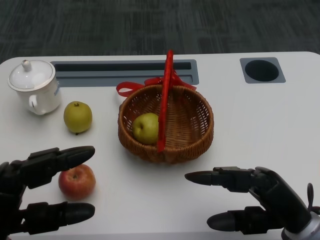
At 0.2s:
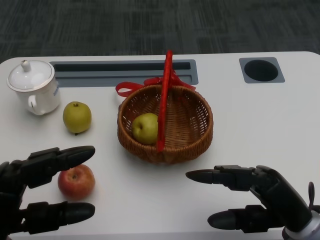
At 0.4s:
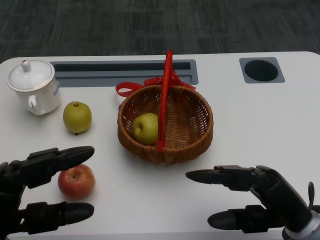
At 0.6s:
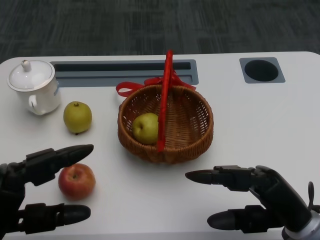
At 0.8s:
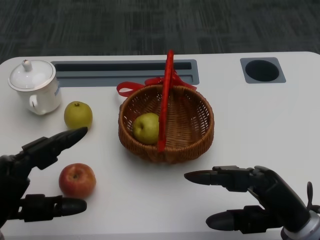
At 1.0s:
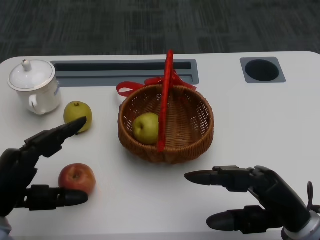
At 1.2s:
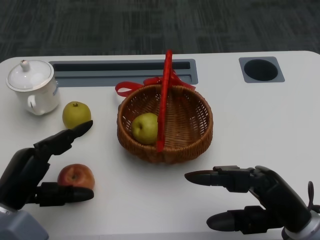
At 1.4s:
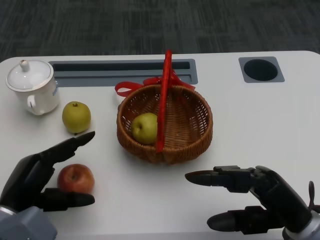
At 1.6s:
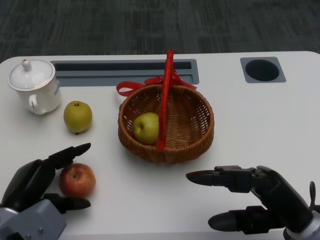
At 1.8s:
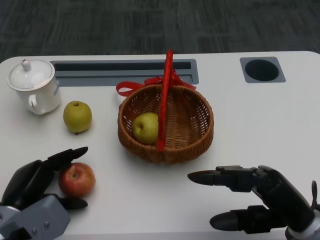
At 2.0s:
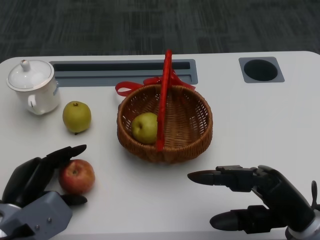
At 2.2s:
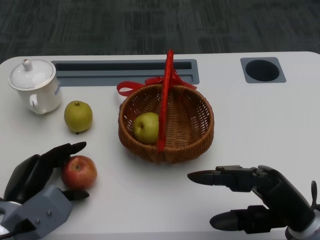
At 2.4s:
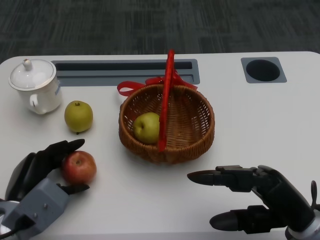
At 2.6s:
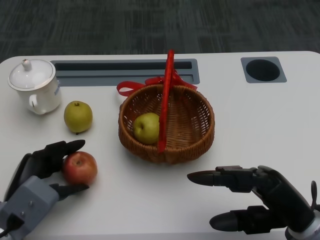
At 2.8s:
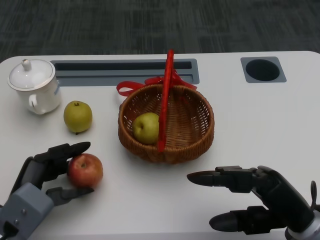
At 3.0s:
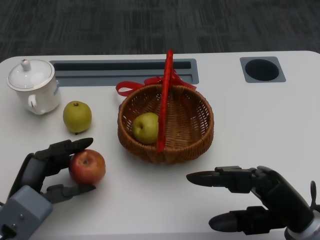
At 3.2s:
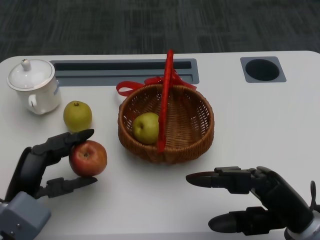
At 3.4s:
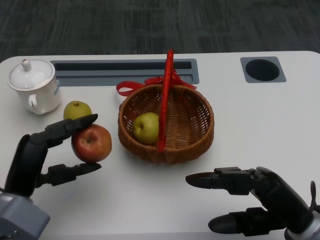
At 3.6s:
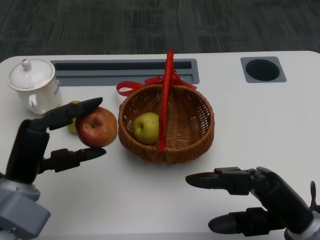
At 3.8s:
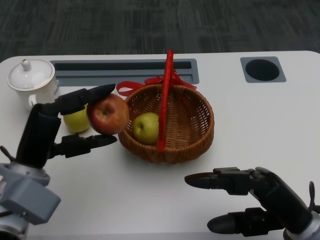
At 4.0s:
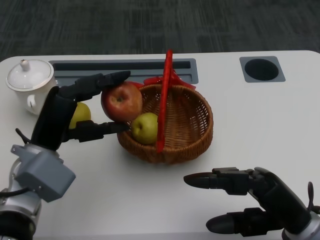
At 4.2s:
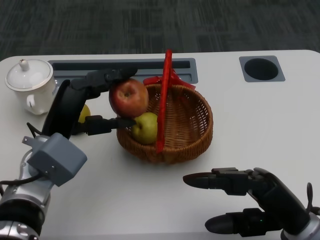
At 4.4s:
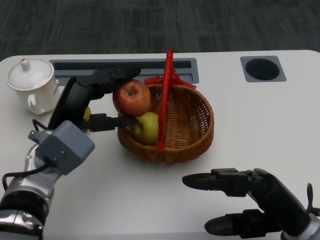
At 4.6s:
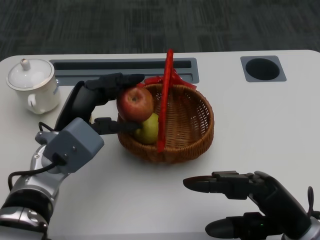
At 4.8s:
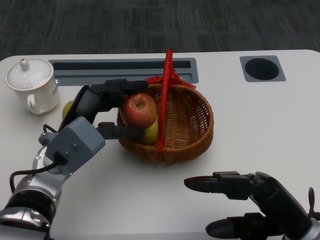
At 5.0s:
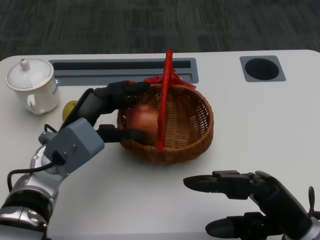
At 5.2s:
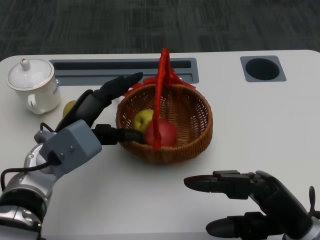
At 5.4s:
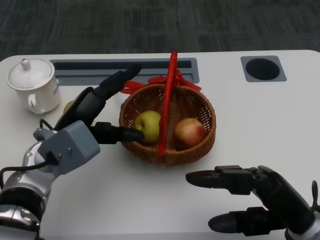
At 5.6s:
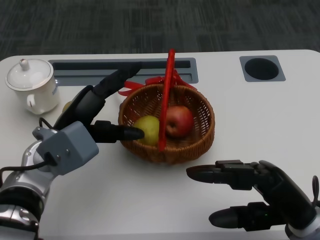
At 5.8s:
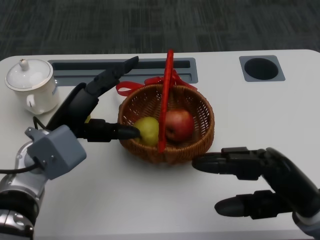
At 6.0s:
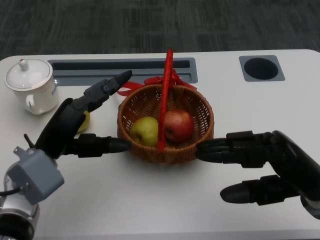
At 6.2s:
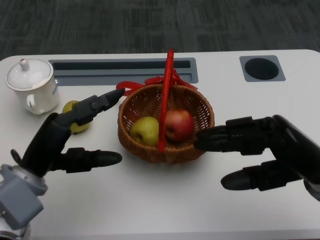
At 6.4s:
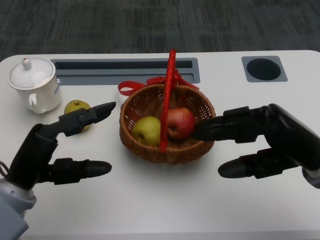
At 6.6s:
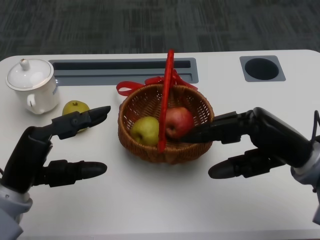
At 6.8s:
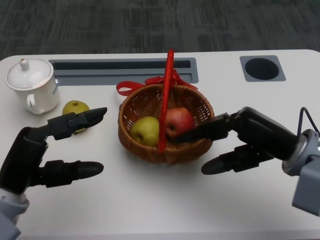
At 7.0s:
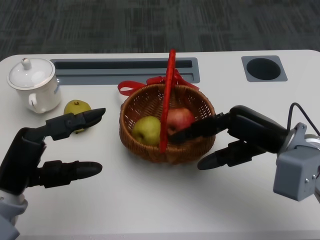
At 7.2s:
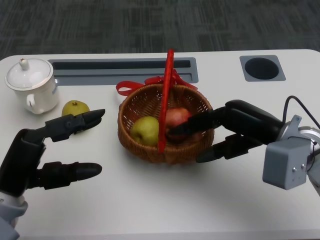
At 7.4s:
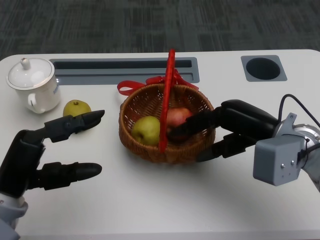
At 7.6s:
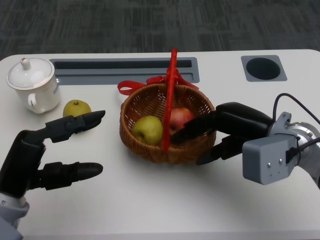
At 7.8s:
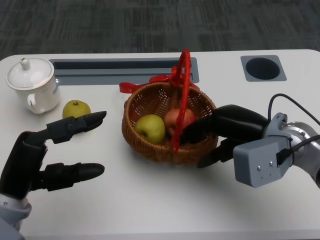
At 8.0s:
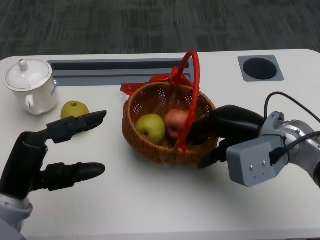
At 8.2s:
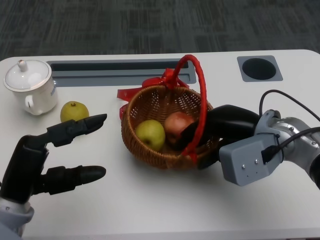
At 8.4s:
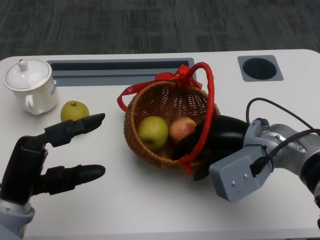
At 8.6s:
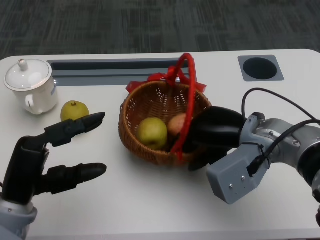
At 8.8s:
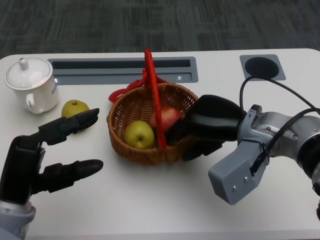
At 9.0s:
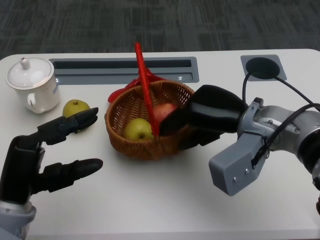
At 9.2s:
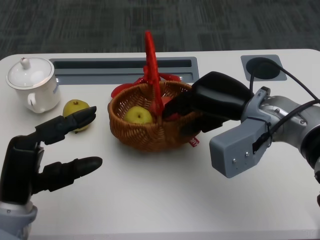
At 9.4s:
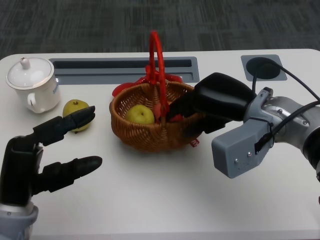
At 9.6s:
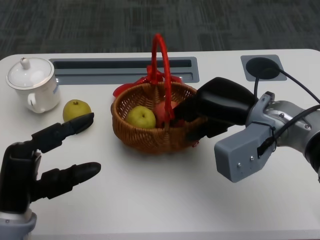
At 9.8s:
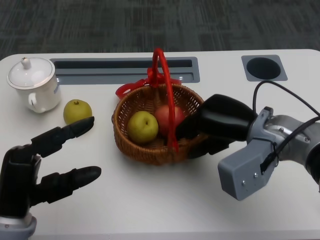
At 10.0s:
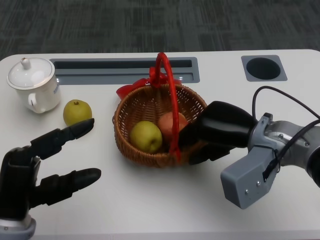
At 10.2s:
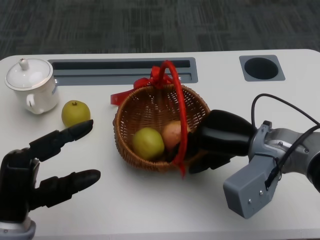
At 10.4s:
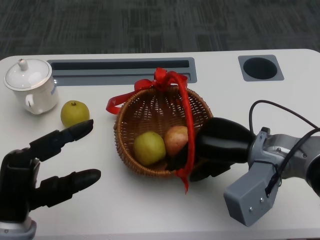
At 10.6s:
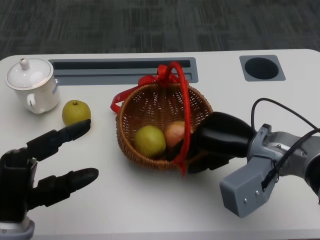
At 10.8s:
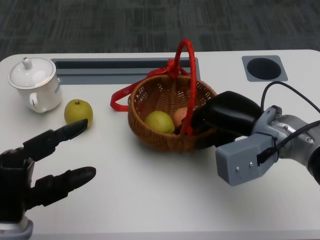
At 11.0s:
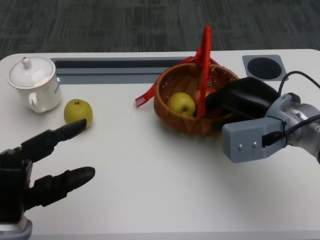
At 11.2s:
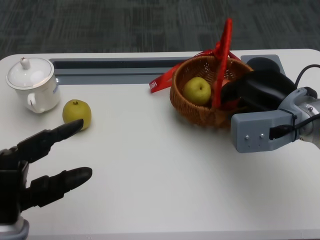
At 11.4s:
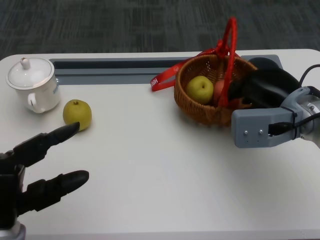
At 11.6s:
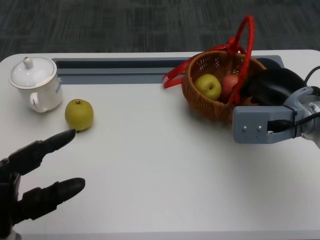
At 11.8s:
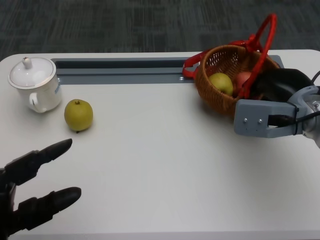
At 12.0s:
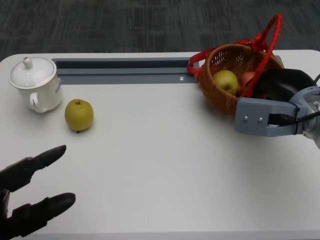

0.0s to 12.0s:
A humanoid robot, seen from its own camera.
Step, 0.6s to 1.6s: Grasp the apple with the left gripper.
Step, 2.0s to 4.4s: Place the apple into the basket with the left gripper.
Step, 4.6s to 7.0s: Grasp the basket with the right gripper.
Step, 7.4s to 10.4s: Move the basket to the front of the table with the right gripper.
1.6s to 3.0s: The hands make only small movements.
3.0s to 4.4s: The left hand shifts some 15 cm upward, forward and to the right.
4.4s to 6.0s: The right hand changes place by some 5 cm.
6.0s to 7.6s: The right hand heads forward, covering roughly 10 cm. Meanwhile the left hand goes about 5 cm backward.
10.4s to 12.0s: The right hand is displaced to the right by roughly 5 cm.

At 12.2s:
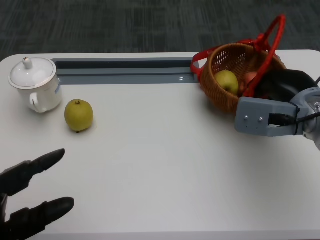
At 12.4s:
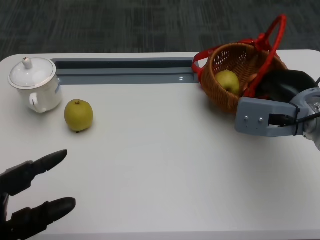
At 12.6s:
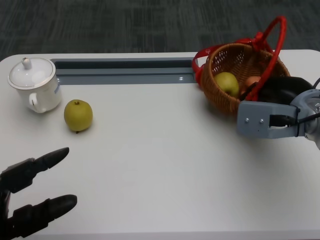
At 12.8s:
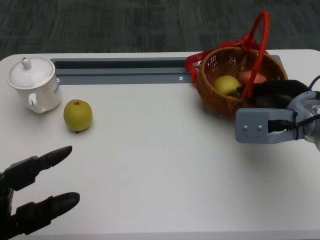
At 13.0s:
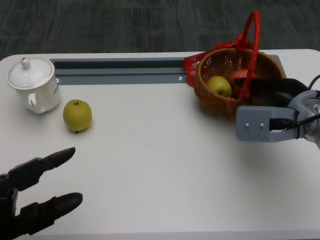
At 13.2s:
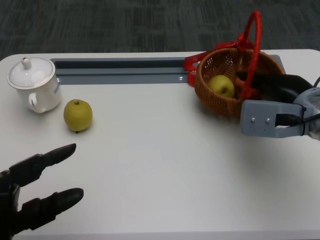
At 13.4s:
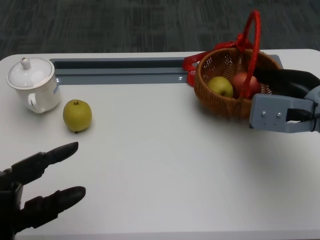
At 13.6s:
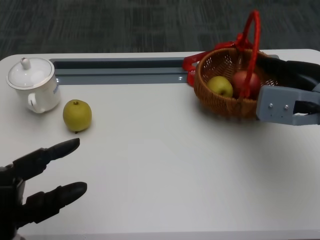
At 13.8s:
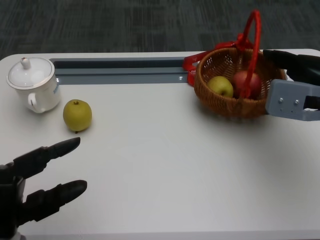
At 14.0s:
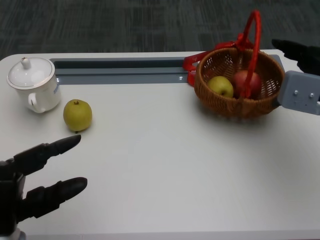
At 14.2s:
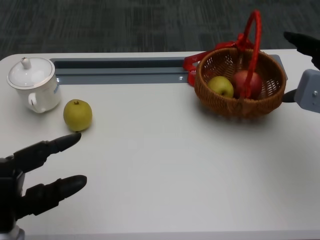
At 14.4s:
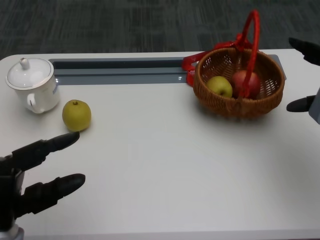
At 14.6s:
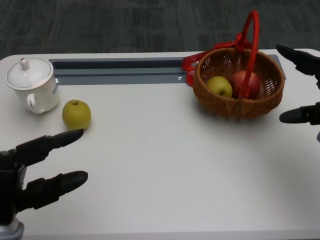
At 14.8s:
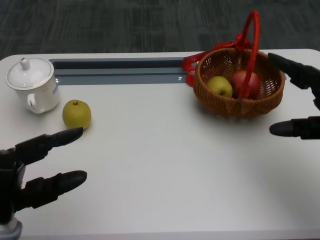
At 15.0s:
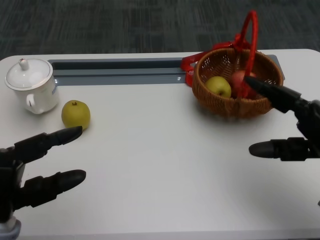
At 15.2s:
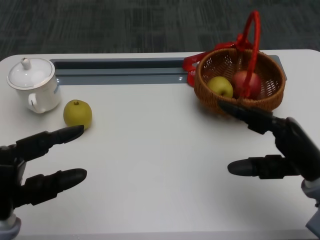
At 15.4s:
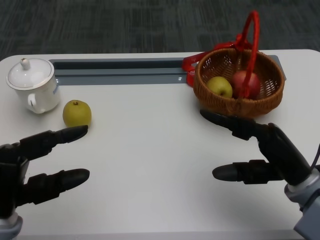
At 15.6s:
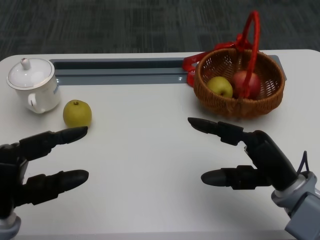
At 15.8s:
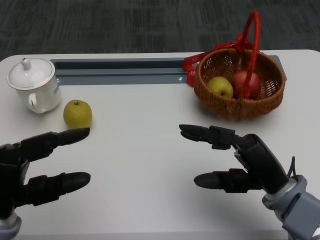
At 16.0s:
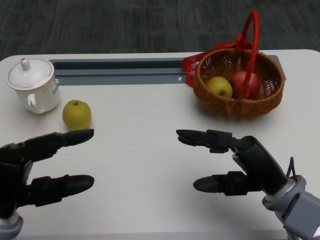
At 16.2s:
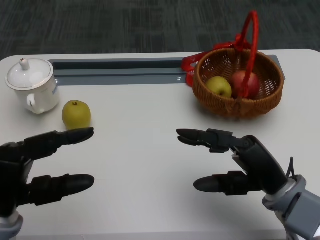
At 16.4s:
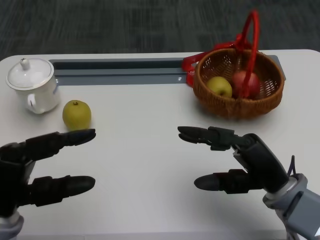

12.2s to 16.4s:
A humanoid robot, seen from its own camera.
12.2s to 13.6s: The hands make only small movements.
13.6s to 15.0s: The right hand goes about 10 cm backward.
15.0s to 16.4s: The right hand is displaced to the left by approximately 10 cm.

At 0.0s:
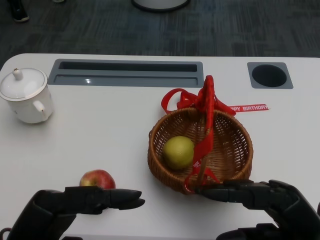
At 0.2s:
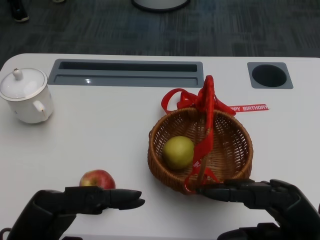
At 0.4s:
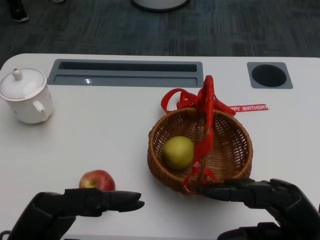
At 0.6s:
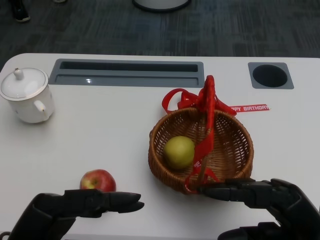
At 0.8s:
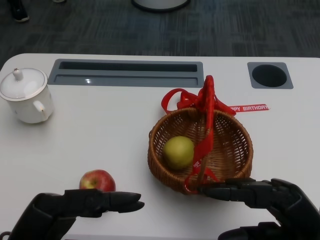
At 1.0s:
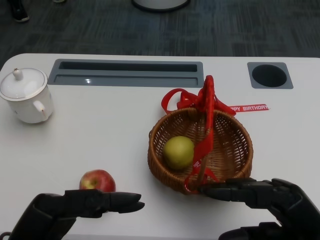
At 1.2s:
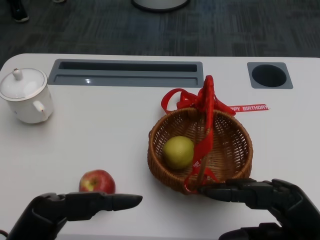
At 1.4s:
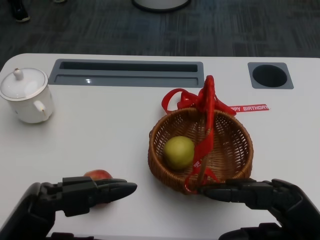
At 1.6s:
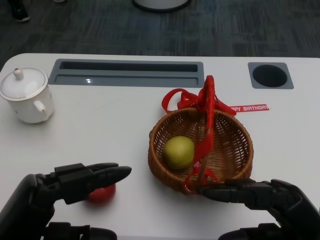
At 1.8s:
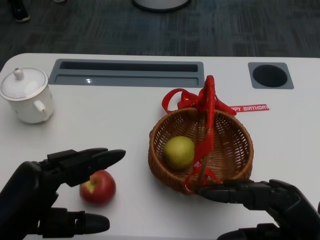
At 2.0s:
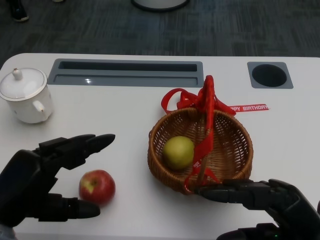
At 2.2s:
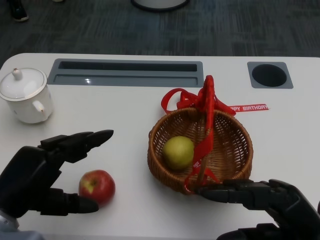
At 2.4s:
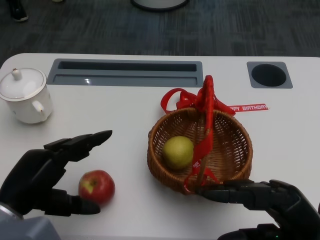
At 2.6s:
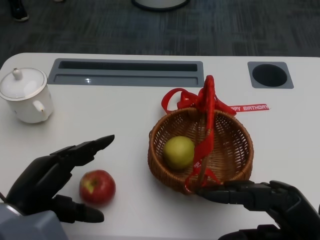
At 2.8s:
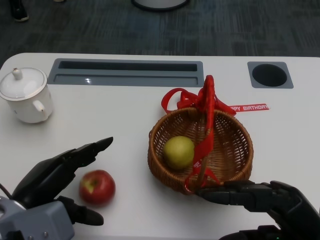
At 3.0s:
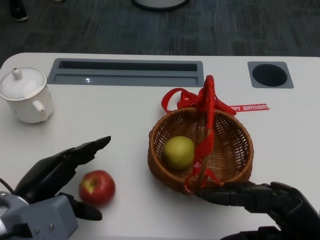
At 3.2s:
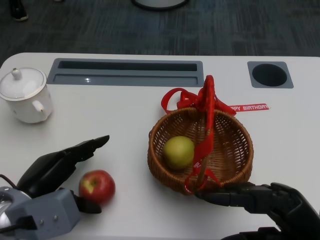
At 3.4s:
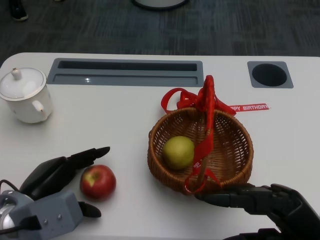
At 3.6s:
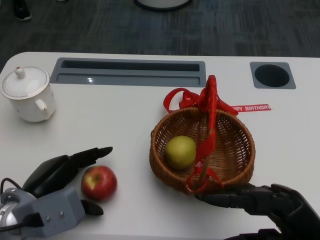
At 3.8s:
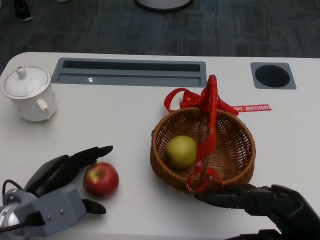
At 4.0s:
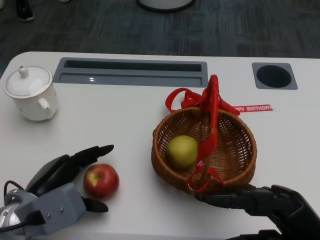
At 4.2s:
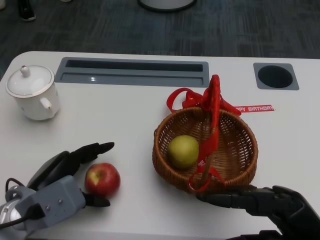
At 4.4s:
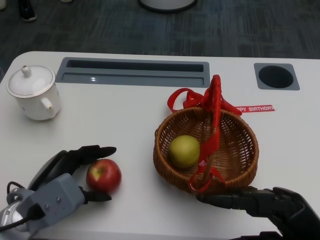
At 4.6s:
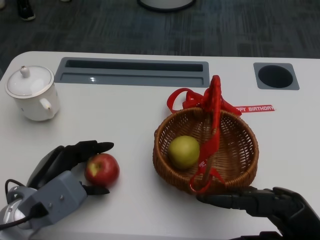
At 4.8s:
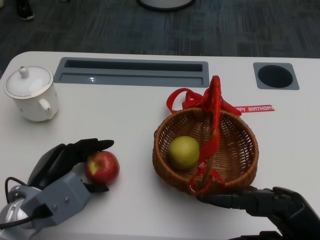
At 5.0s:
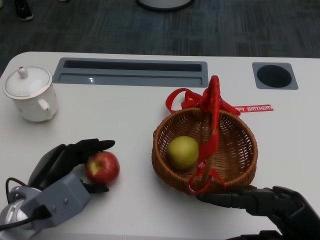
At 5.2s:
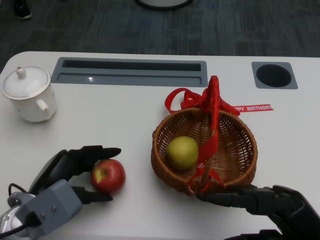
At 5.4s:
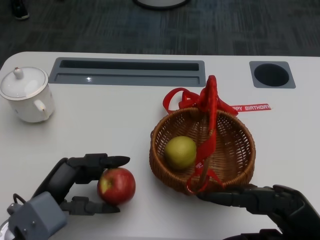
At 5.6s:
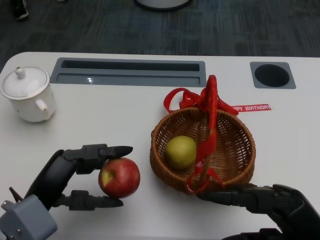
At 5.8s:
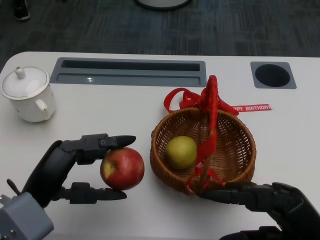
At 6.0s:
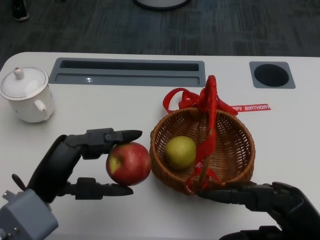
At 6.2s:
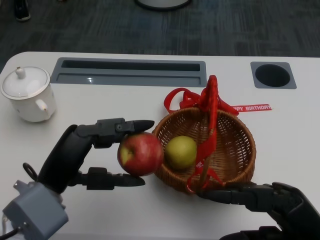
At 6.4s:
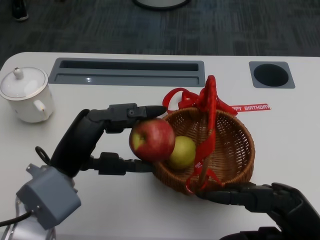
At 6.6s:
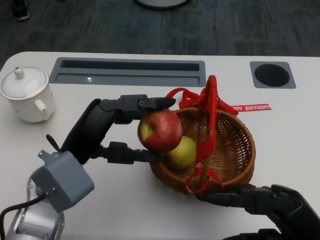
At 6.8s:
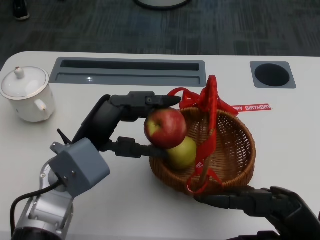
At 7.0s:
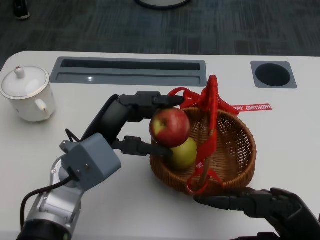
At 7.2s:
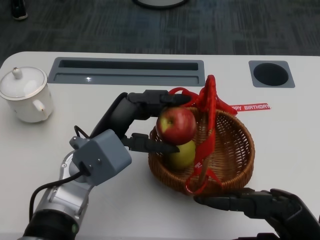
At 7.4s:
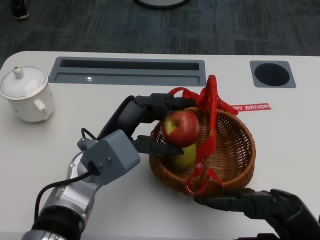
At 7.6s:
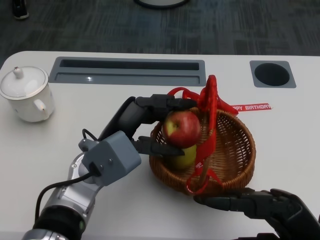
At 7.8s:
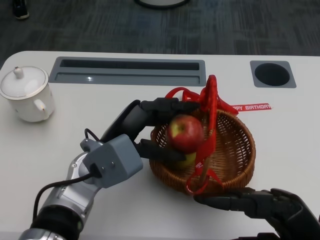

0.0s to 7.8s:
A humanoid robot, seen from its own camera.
Step, 1.0s to 3.8s: Grasp the apple with the left gripper.
Step, 4.0s to 6.2s: Place the apple into the basket with the left gripper.
1.6s to 3.2s: The left hand shifts some 10 cm forward and downward.
4.6s to 6.2s: The left hand is displaced upward by some 10 cm.
6.2s to 7.8s: The left hand moves to the right and forward, roughly 10 cm.
